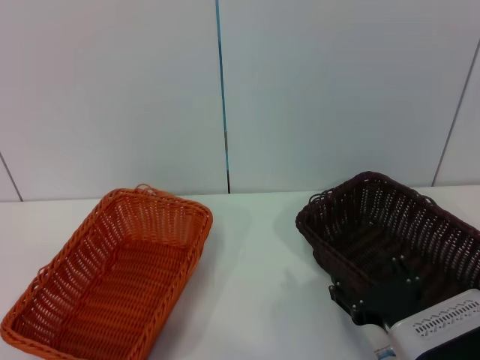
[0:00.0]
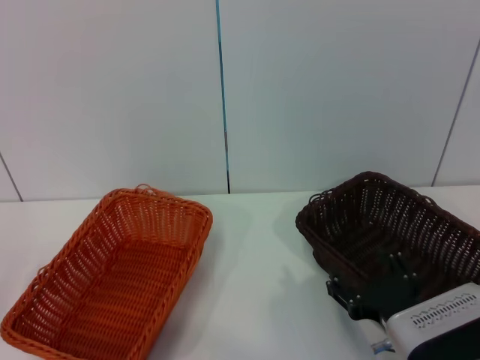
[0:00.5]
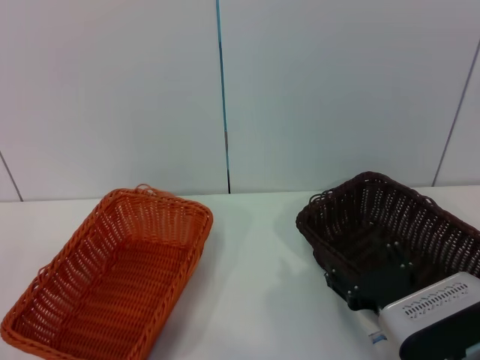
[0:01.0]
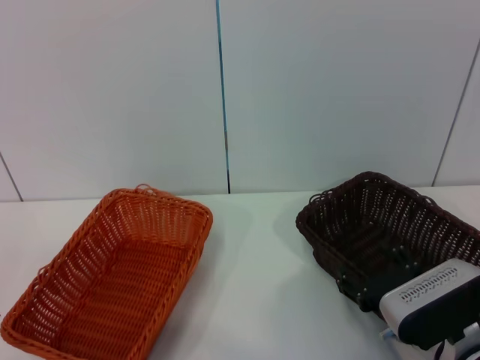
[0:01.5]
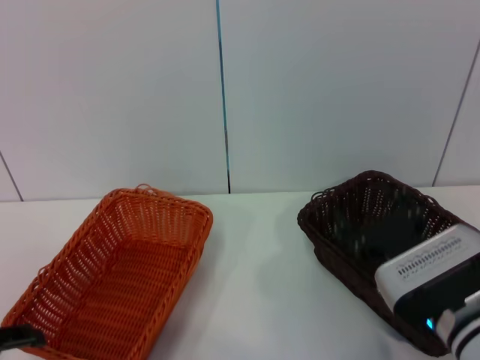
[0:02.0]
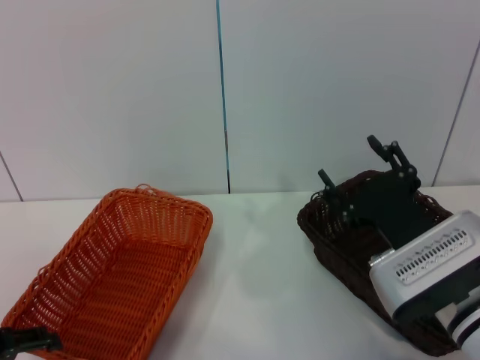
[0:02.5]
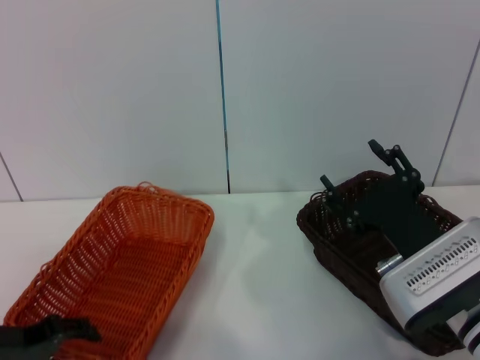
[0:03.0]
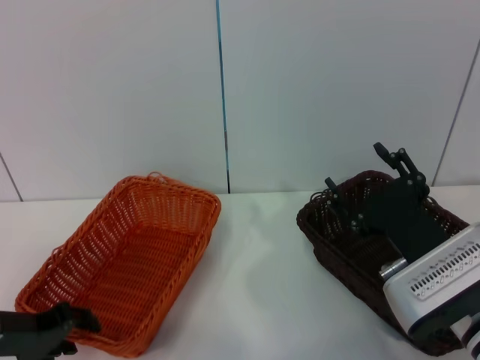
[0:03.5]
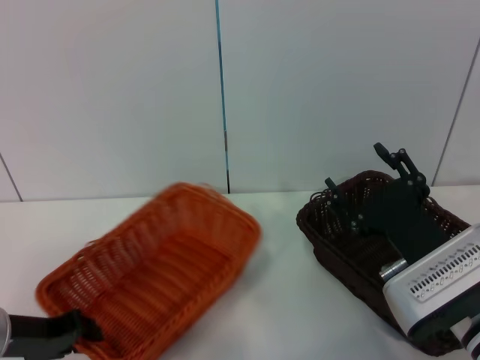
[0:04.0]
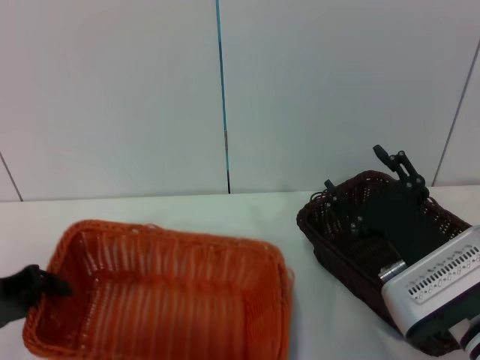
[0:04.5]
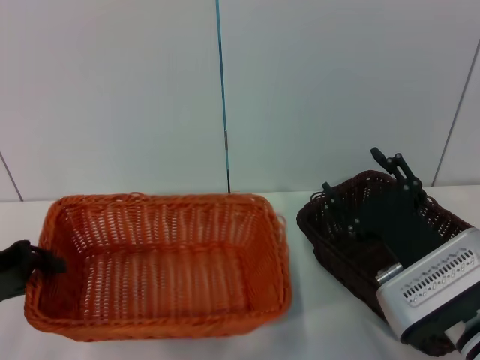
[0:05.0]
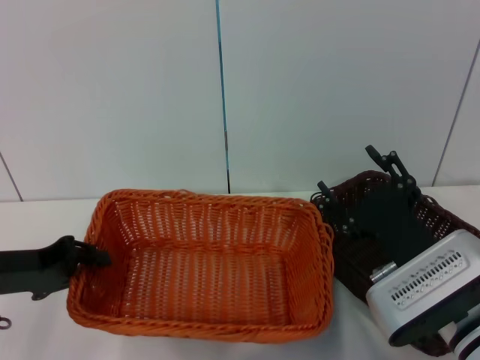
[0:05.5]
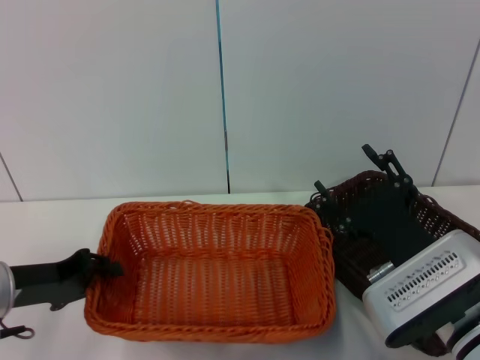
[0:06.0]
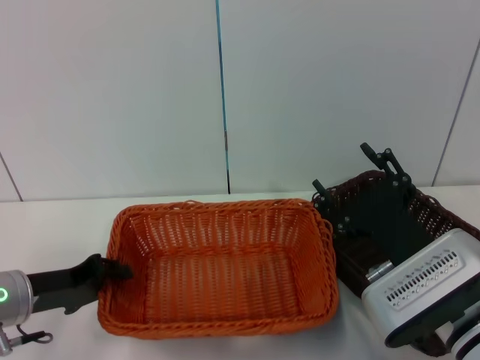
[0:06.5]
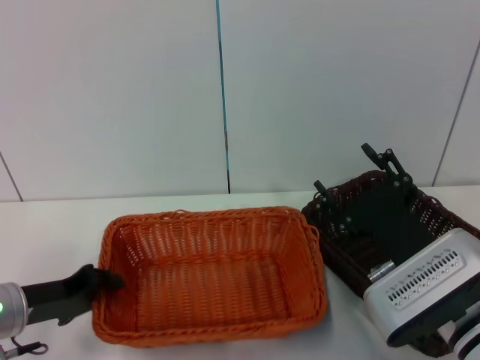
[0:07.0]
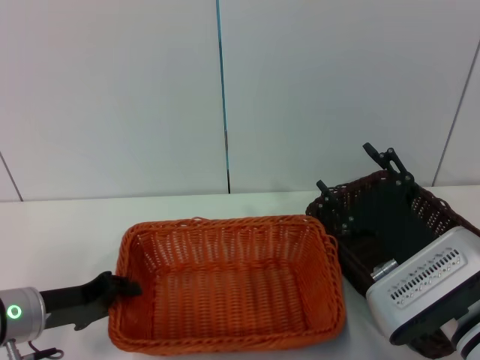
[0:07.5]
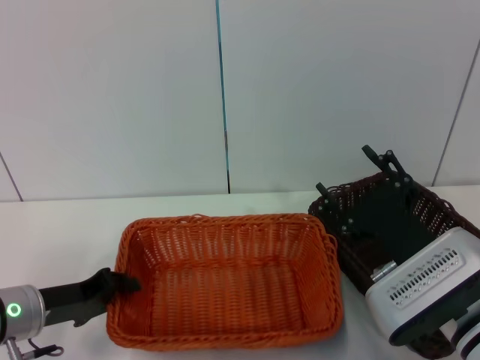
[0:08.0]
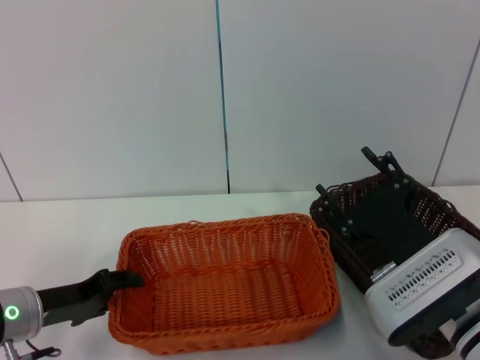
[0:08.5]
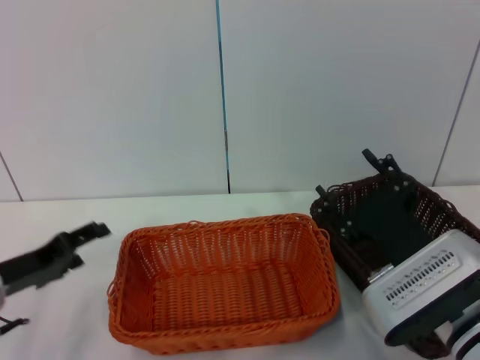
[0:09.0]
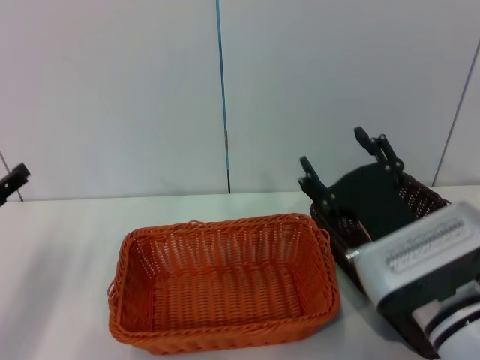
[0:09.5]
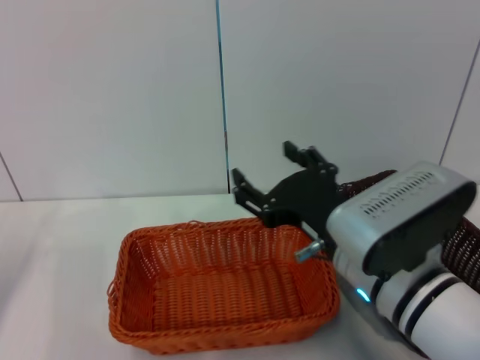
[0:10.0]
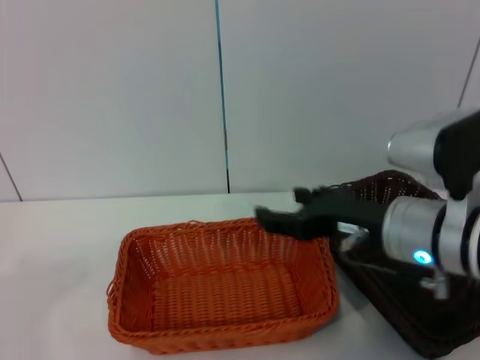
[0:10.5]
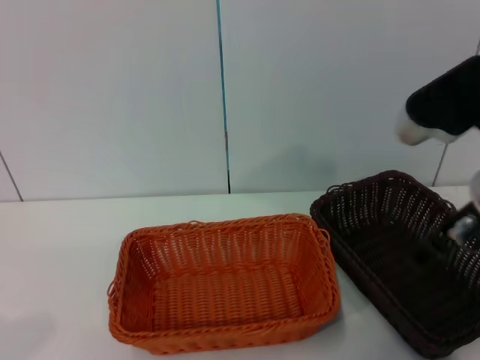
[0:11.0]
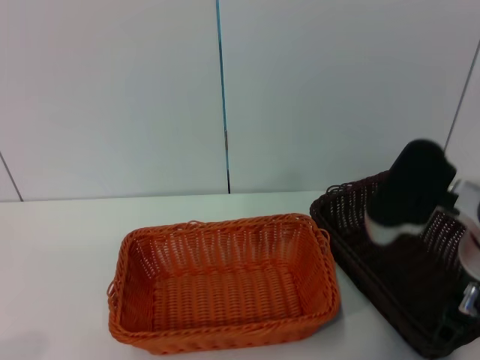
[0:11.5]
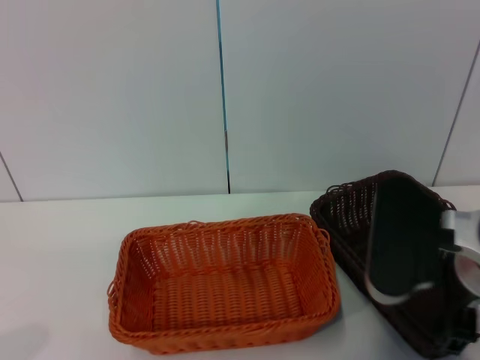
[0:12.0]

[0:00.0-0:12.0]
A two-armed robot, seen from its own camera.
Step, 0:00.0 to 0:04.5: Pick up the light basket with the left gripper.
Step, 0:05.0 to 0:08.0: Place the light basket in the center of view with the left gripper.
0:00.0 to 0:02.0: The left gripper moves upward and to the right, about 10 cm. Meanwhile the right gripper changes place by approximately 5 cm.
0:02.0 to 0:04.0: The left gripper is displaced forward and to the right by approximately 10 cm, and closes up.
0:06.0 to 0:08.0: The grippers move only a little.
0:08.0 to 0:10.0: The right gripper is displaced to the left by some 5 cm. The left gripper is displaced to the left by some 10 cm, and opens up.
0:10.0 to 0:12.0: The right gripper travels to the right and upward by about 10 cm, while the left gripper travels backward and downward by roughly 15 cm.

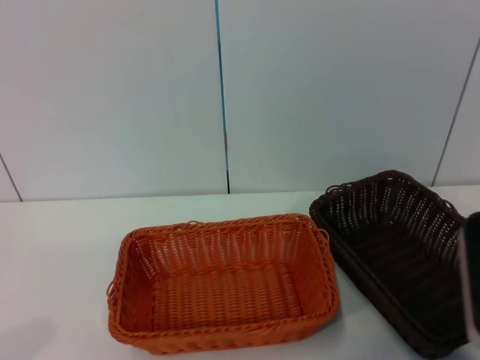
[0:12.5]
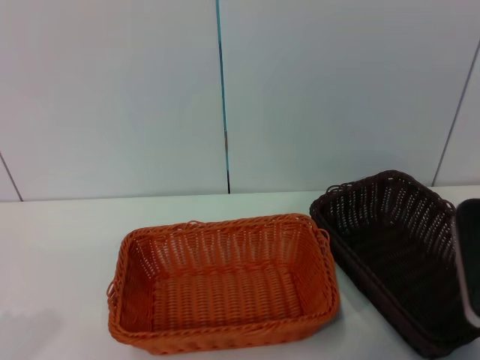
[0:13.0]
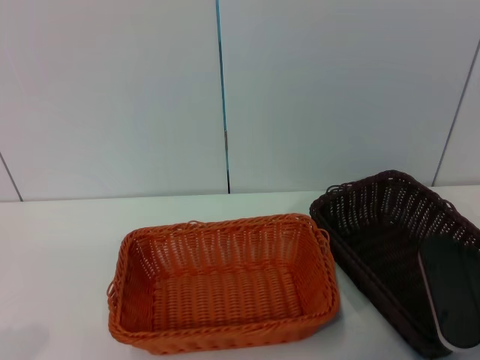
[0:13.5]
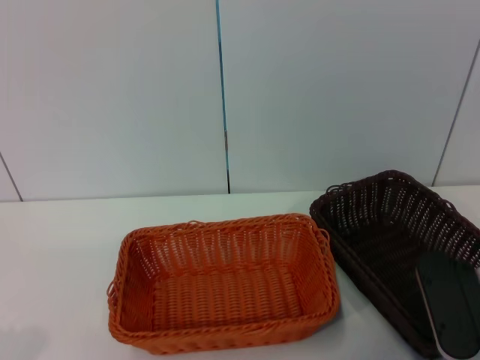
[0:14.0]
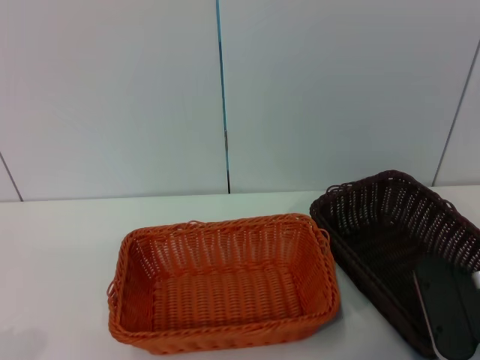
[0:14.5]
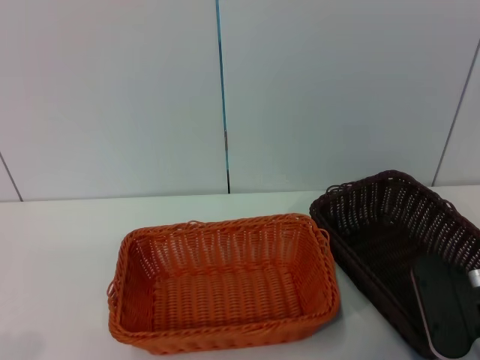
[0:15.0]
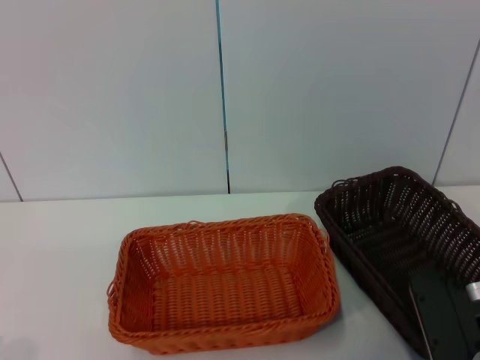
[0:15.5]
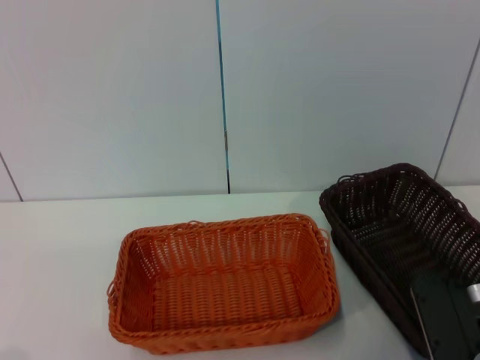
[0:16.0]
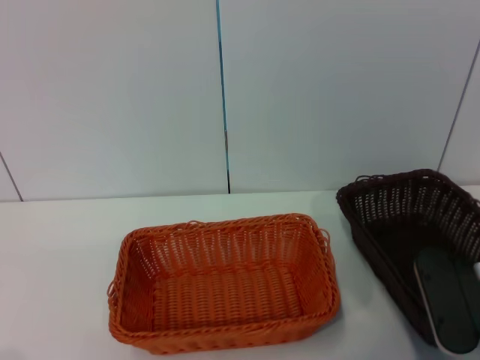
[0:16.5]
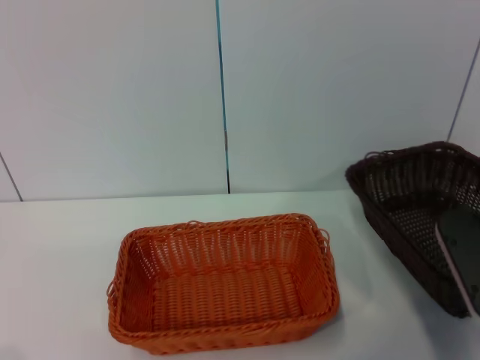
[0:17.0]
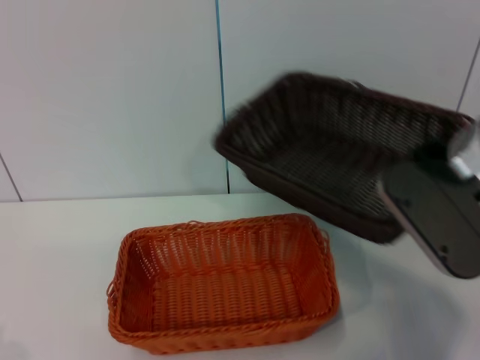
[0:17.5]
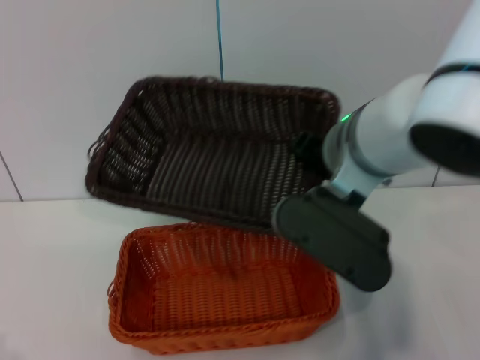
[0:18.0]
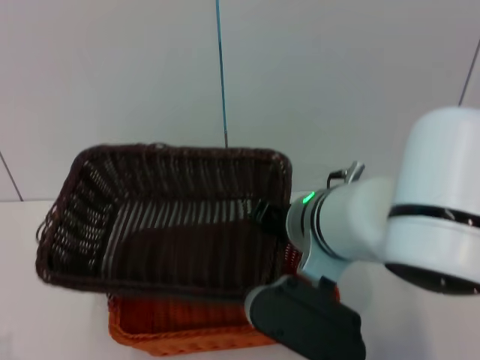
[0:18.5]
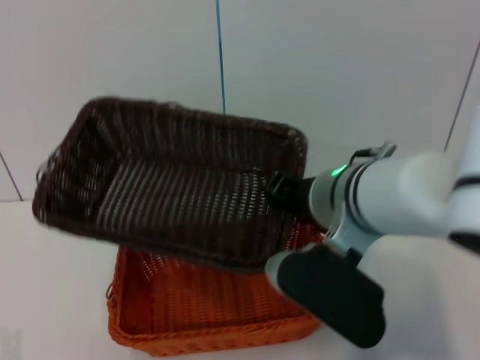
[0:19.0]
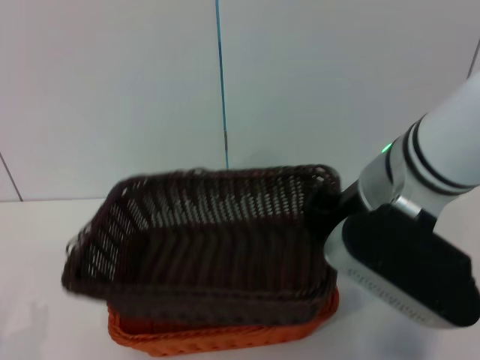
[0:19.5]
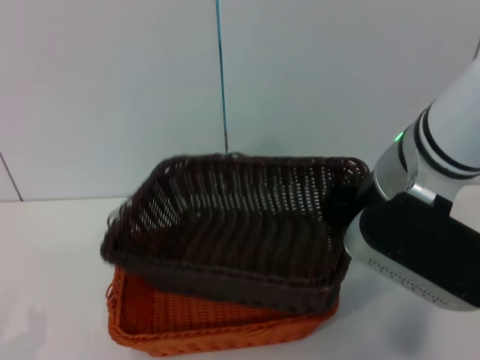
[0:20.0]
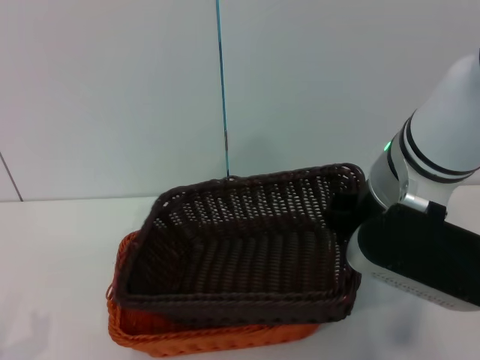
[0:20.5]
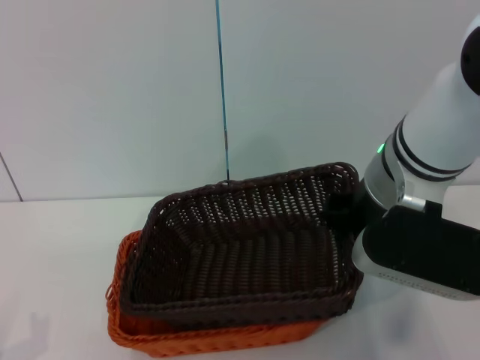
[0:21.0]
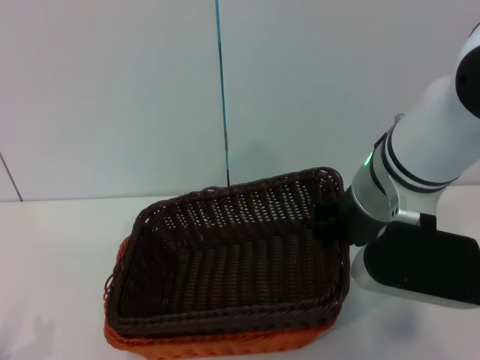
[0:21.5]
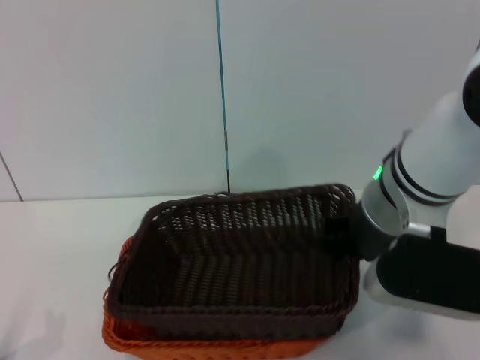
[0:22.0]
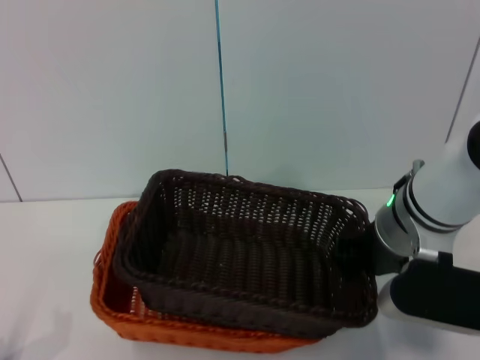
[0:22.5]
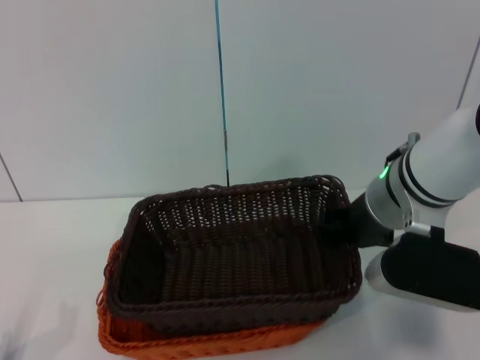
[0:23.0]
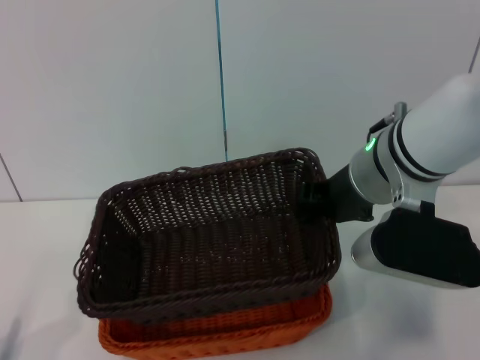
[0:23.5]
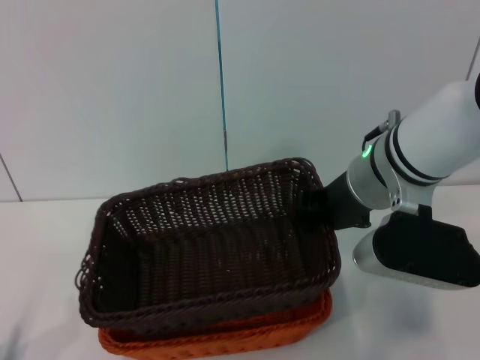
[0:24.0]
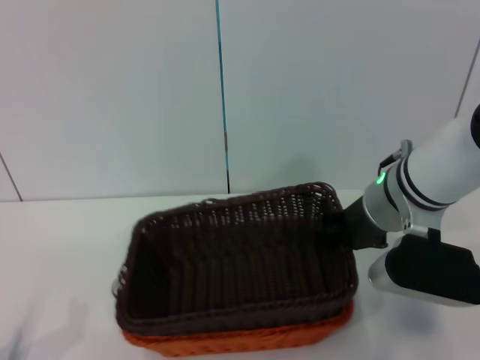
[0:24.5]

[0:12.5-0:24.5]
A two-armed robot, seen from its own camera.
Step, 0:12.5 to 0:16.5: Pick up the dark basket with the right gripper.
0:12.5 to 0:14.5: The right gripper goes about 10 cm downward and forward.
0:14.5 to 0:16.5: The right gripper closes its fingers.
0:16.5 to 0:18.5: The right gripper moves to the left, some 20 cm.
0:18.5 to 0:20.5: The right gripper is displaced to the right and upward by about 10 cm.
0:20.5 to 0:22.5: The right gripper shifts roughly 5 cm downward.
0:22.5 to 0:24.5: The grippers stay close to where they were, moving slightly.

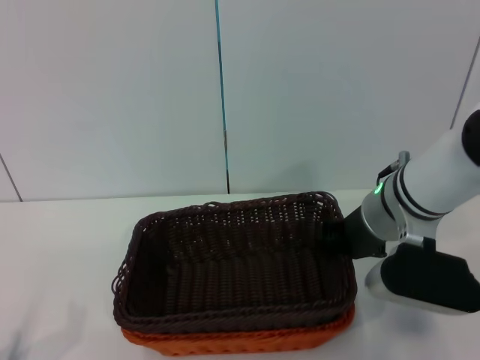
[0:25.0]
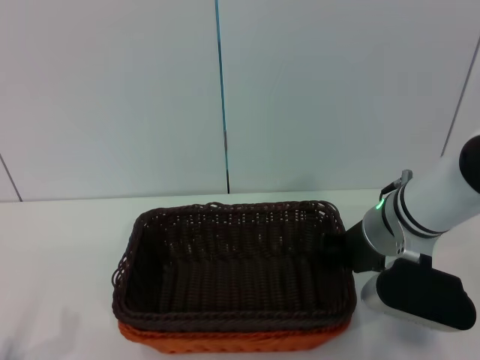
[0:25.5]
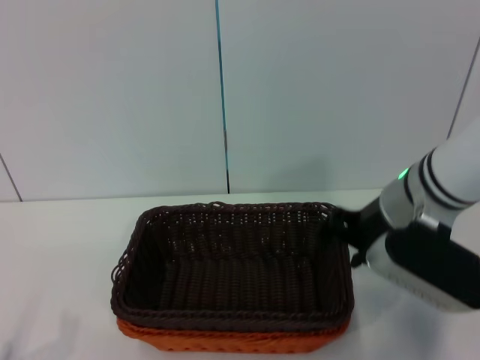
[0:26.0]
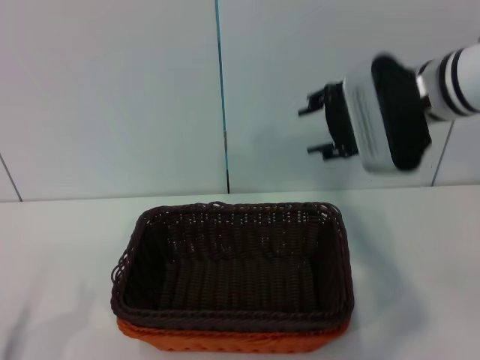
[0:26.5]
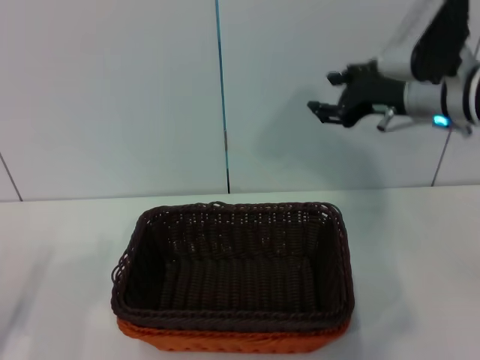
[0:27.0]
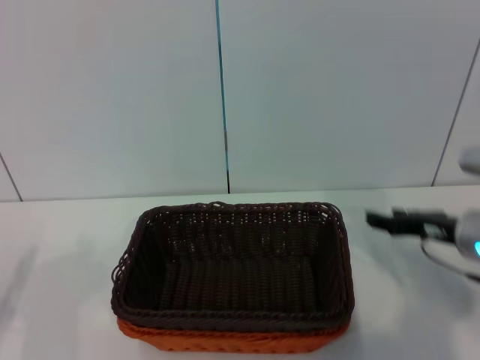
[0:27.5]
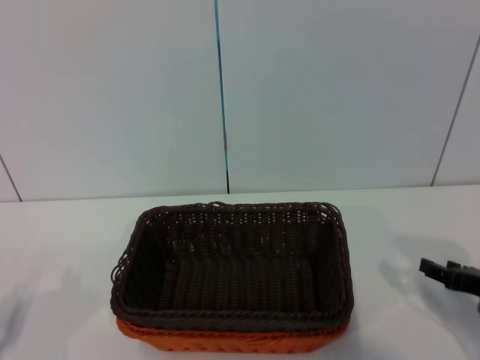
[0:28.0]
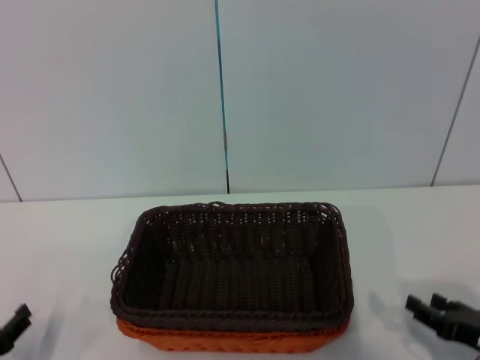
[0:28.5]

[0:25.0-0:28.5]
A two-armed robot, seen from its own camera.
0:25.0 to 0:27.0: The right gripper goes roughly 10 cm to the right, forward and upward, and opens its fingers. The left gripper travels forward and upward by approximately 10 cm.
0:27.0 to 0:28.5: The right gripper is displaced downward, backward and to the right by roughly 30 cm; the left gripper goes approximately 5 cm downward.
